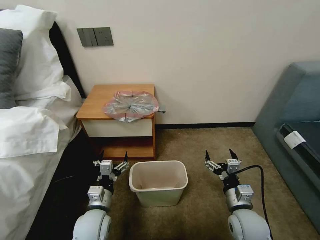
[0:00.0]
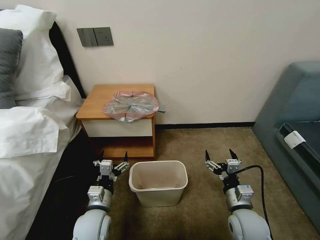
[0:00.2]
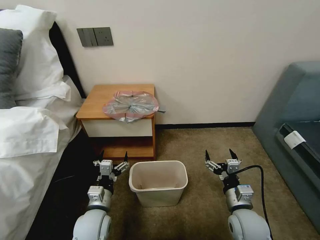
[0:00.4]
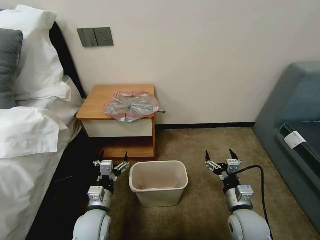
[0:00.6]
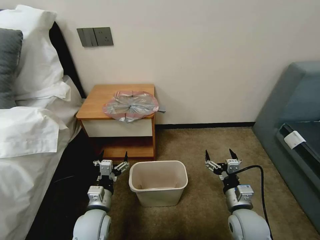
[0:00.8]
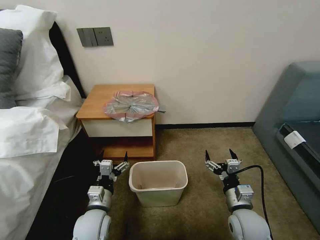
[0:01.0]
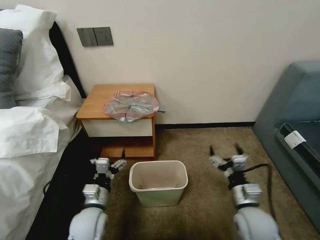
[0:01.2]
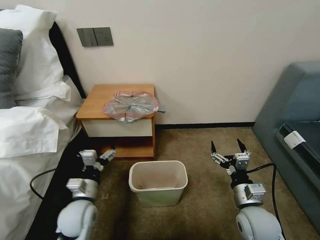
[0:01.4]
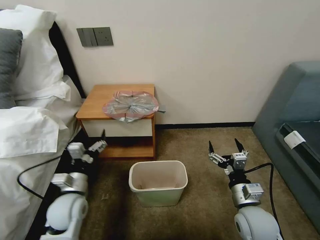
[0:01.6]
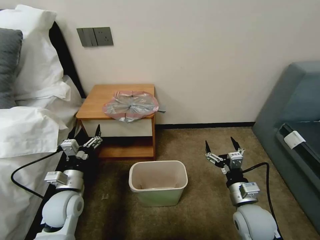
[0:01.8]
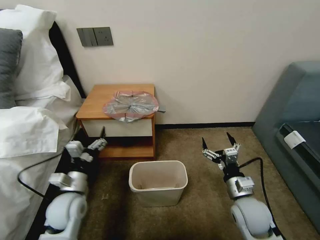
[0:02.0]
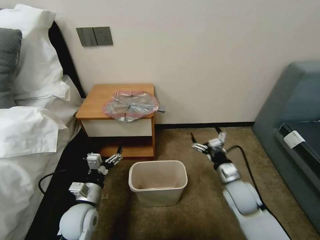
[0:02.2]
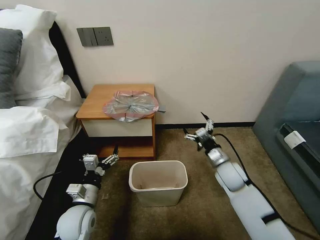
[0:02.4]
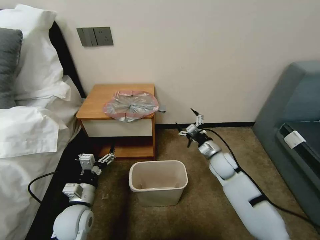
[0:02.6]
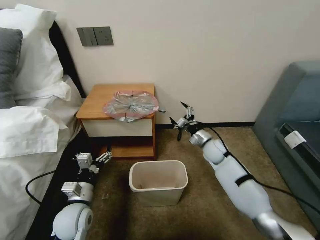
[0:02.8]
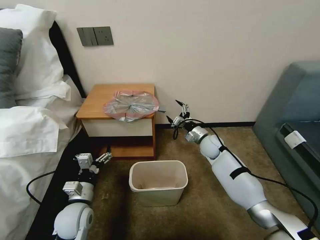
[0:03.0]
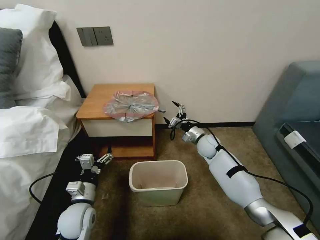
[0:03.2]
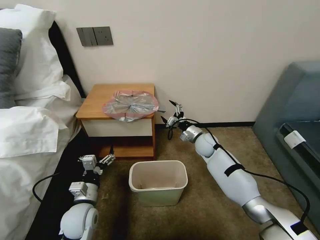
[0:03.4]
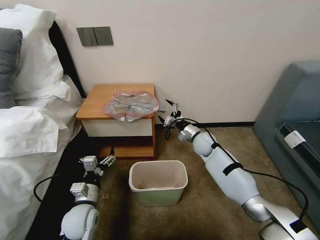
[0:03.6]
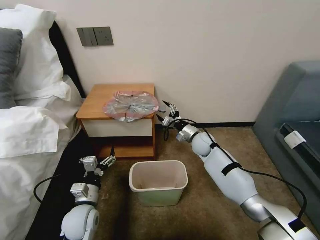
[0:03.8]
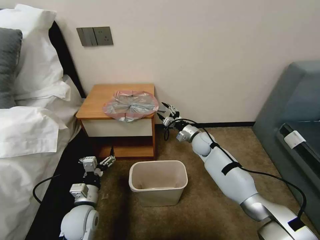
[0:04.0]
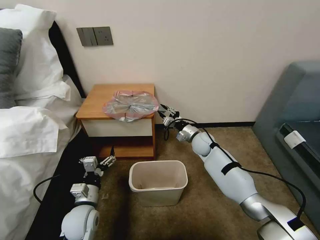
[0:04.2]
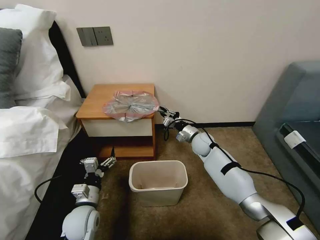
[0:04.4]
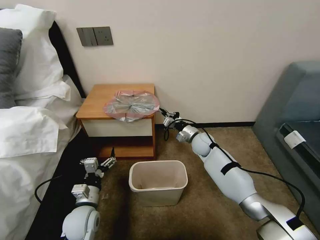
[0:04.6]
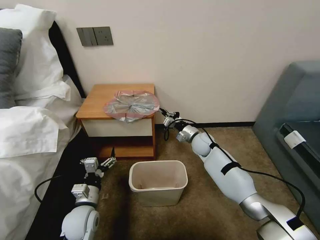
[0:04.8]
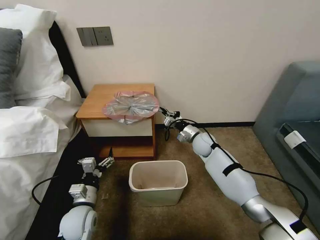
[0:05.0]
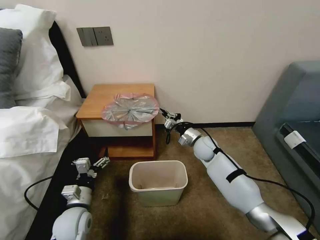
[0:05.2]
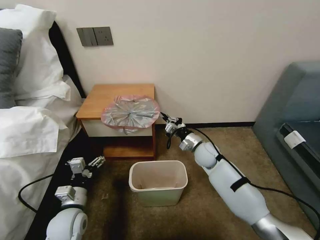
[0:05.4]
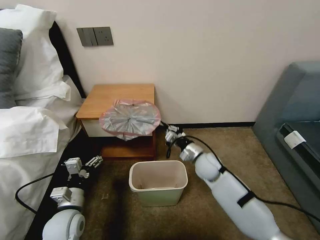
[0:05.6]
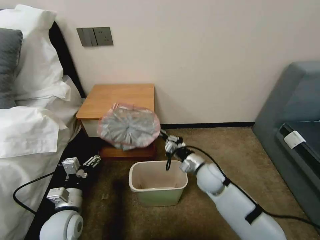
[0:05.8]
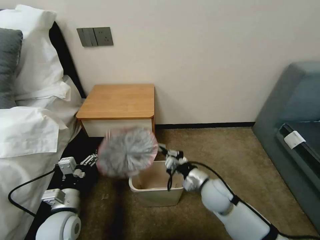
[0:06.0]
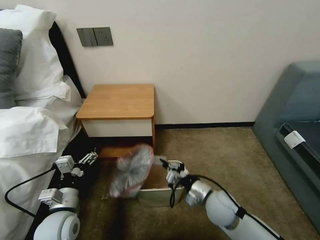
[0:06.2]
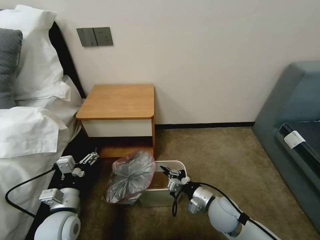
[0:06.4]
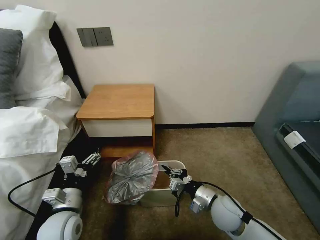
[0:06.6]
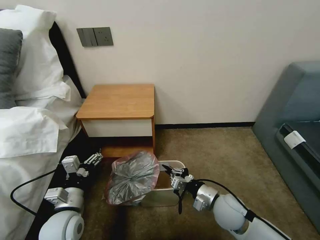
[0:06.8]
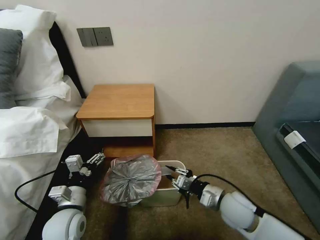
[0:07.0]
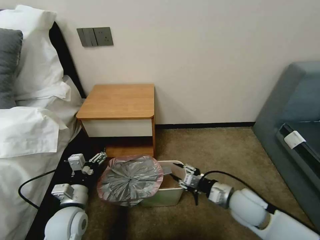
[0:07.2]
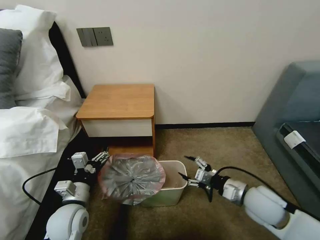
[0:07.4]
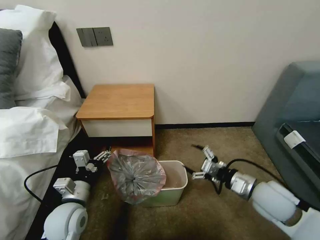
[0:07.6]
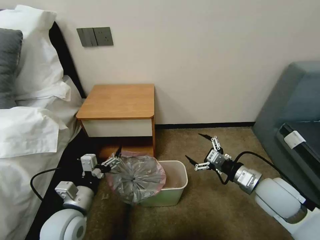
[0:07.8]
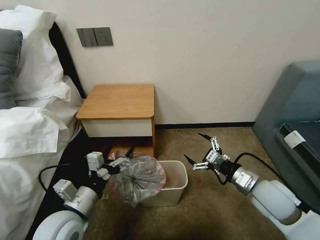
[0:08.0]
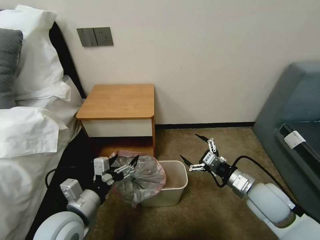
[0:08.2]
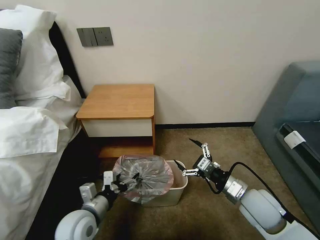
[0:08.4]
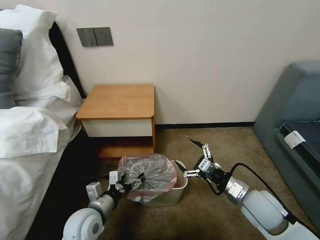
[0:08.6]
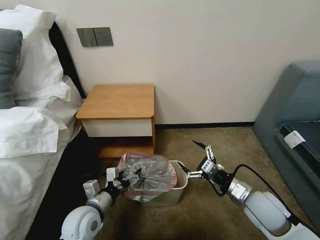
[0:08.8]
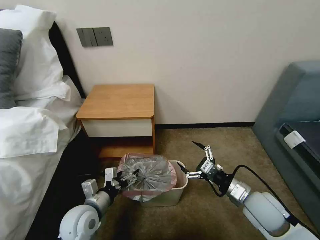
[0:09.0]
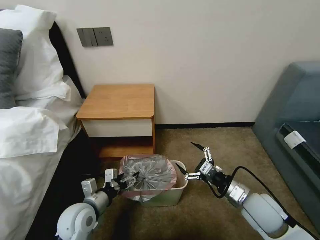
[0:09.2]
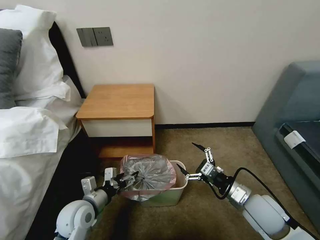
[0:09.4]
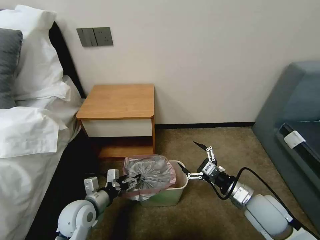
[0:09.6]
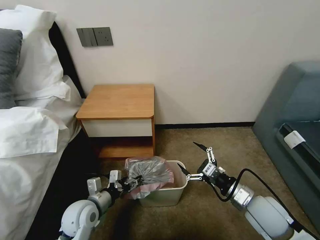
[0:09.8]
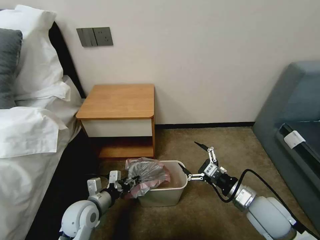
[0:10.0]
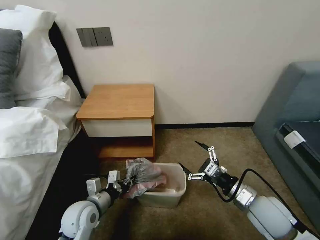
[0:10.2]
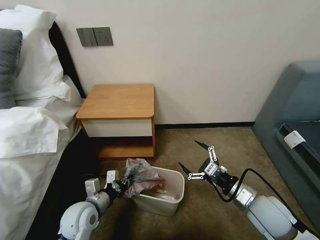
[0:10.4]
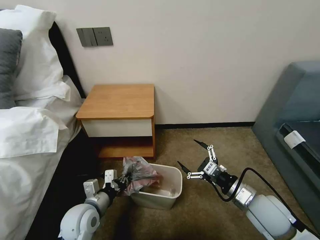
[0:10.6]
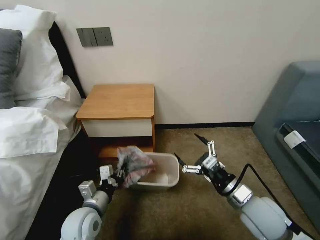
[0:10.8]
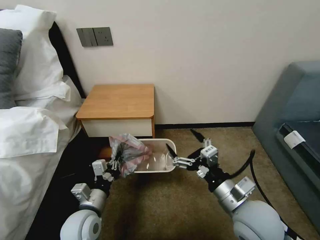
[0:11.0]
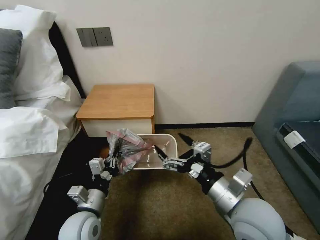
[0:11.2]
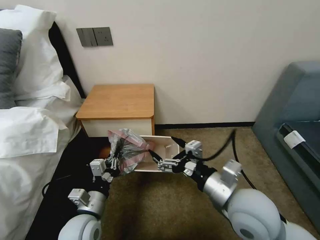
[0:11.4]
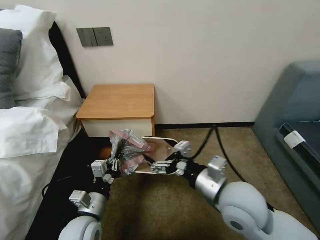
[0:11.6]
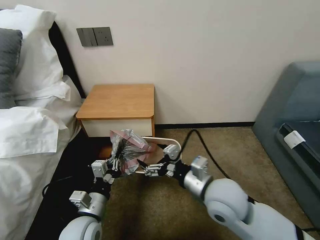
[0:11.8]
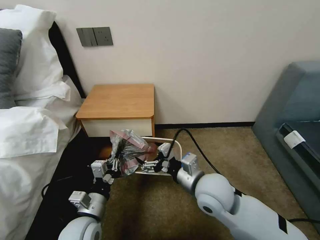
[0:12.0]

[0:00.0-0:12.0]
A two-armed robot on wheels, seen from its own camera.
Task of the whole recording: Pick up the garbage bag from the table and place it over the trash can.
0:01.6 to 0:03.0: The right gripper heads forward, covering about 30 cm.
0:03.0 to 0:04.4: The right gripper closes.
0:04.4 to 0:06.0: The left gripper moves approximately 5 cm. The right gripper shifts approximately 20 cm backward.
0:06.0 to 0:07.6: The right gripper shifts some 15 cm to the right and upward, and opens.
0:07.6 to 0:09.0: The left gripper travels upward and back again, some 5 cm each way.
0:09.0 to 0:10.4: The left gripper closes.
0:10.4 to 0:12.0: The left gripper changes place by approximately 5 cm. Meanwhile the right gripper shifts approximately 15 cm to the left.

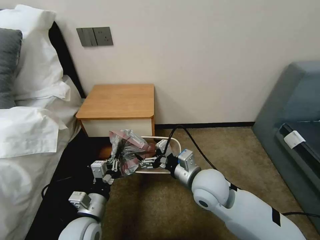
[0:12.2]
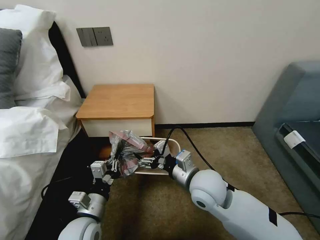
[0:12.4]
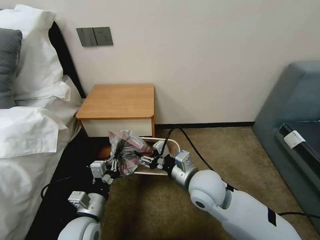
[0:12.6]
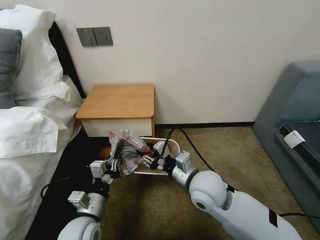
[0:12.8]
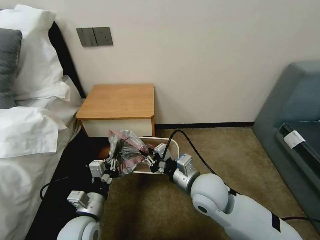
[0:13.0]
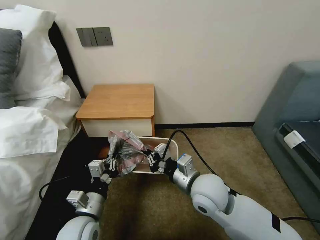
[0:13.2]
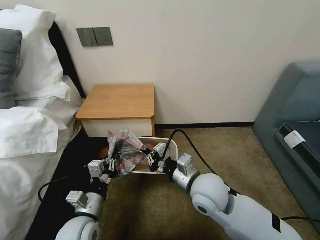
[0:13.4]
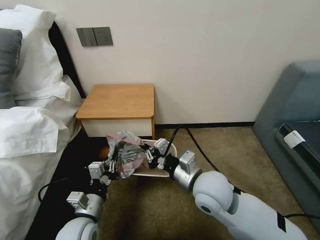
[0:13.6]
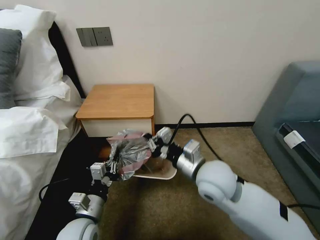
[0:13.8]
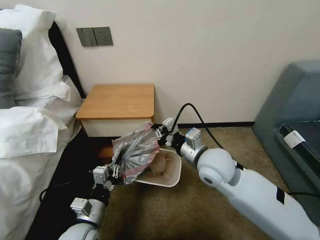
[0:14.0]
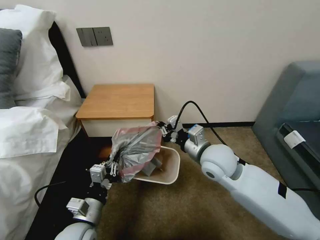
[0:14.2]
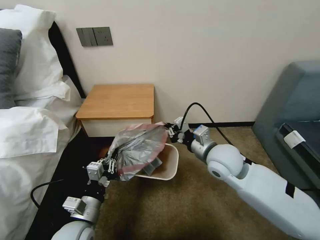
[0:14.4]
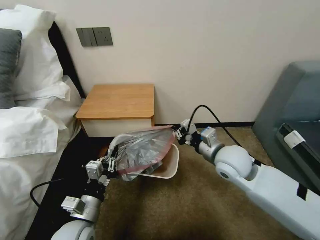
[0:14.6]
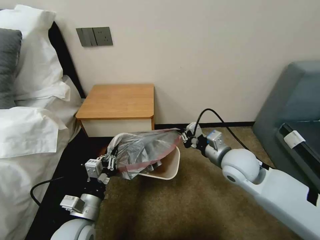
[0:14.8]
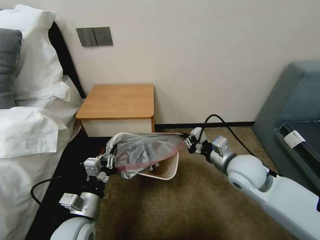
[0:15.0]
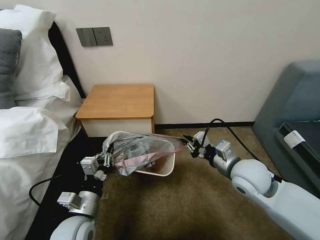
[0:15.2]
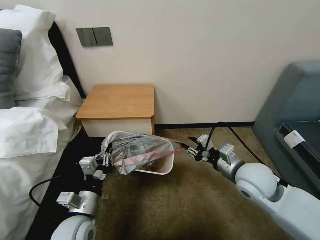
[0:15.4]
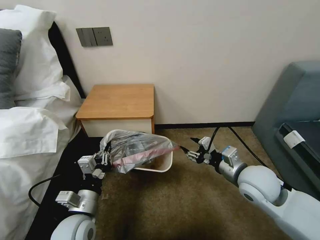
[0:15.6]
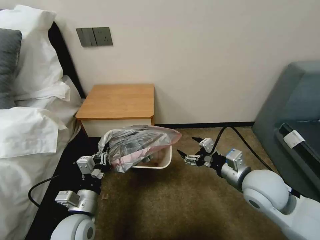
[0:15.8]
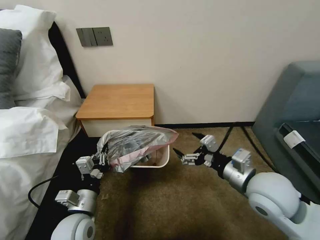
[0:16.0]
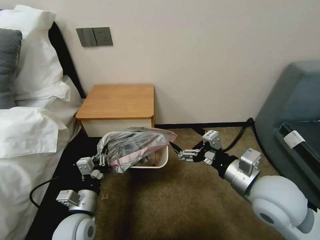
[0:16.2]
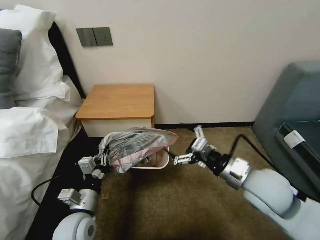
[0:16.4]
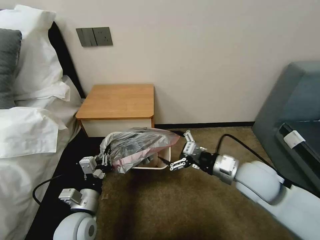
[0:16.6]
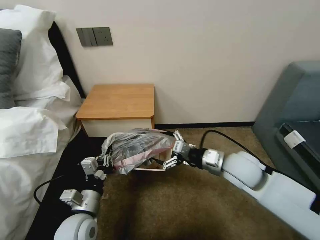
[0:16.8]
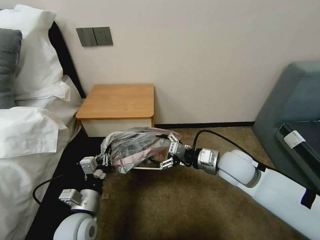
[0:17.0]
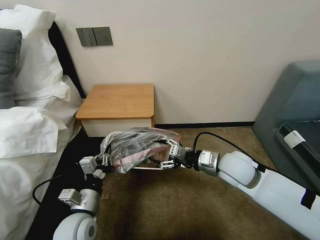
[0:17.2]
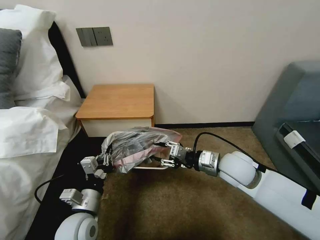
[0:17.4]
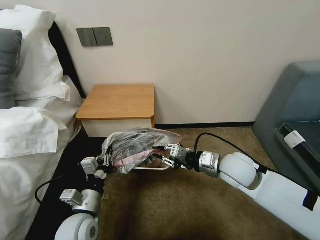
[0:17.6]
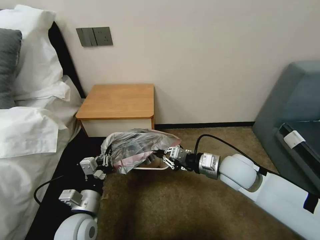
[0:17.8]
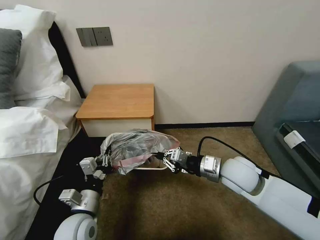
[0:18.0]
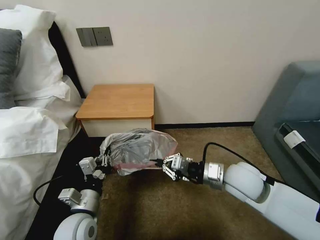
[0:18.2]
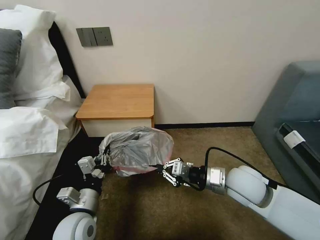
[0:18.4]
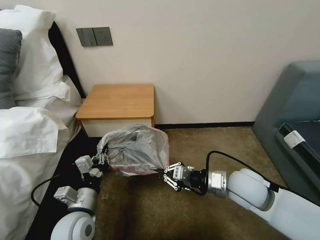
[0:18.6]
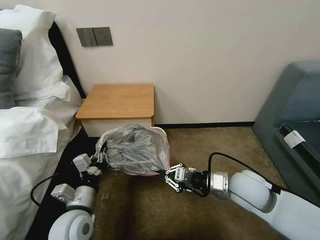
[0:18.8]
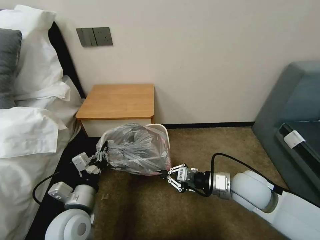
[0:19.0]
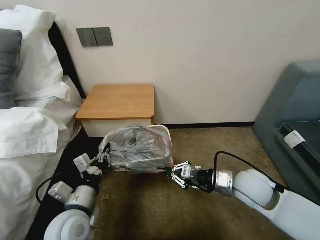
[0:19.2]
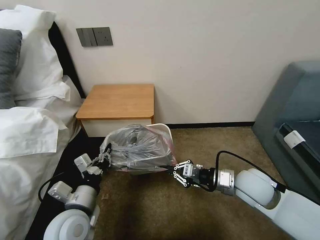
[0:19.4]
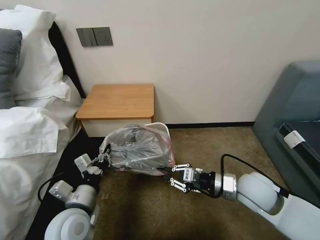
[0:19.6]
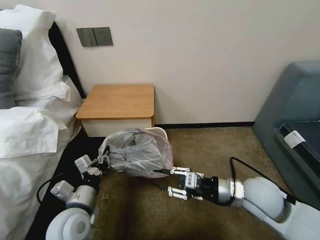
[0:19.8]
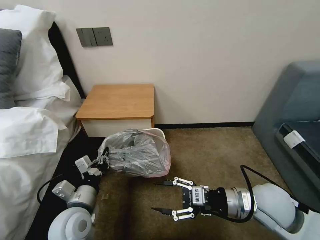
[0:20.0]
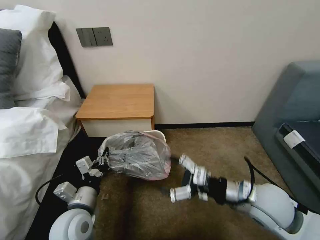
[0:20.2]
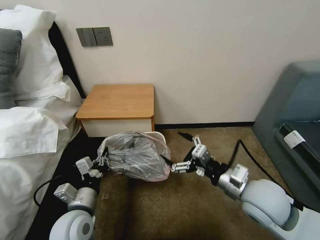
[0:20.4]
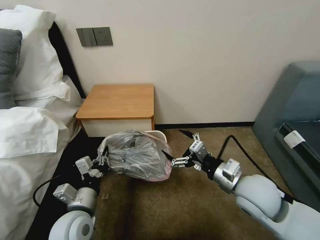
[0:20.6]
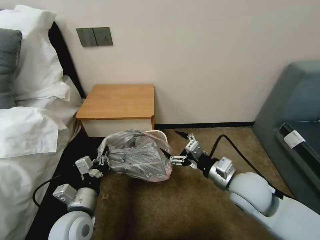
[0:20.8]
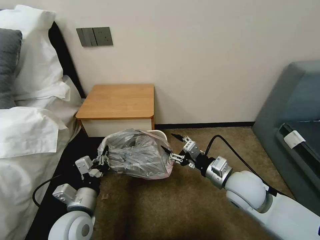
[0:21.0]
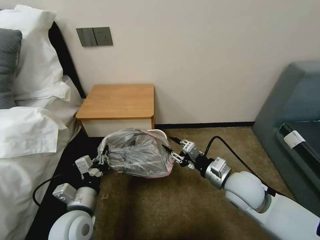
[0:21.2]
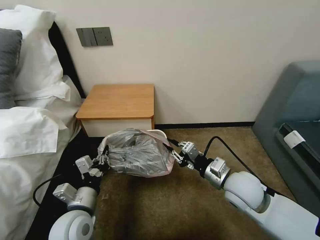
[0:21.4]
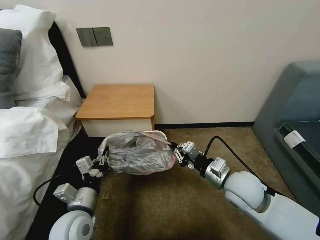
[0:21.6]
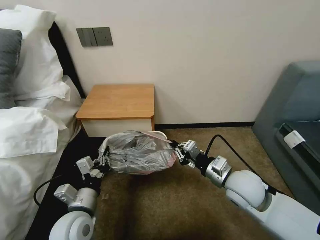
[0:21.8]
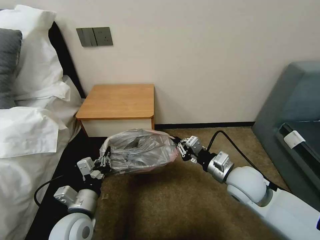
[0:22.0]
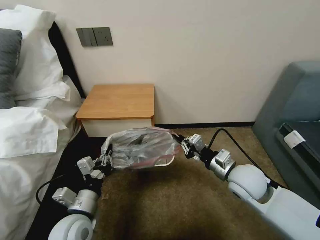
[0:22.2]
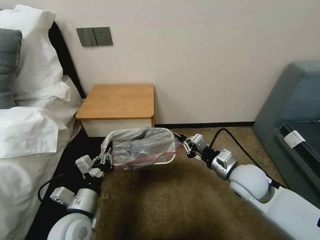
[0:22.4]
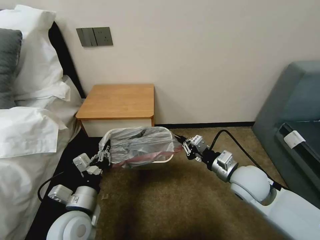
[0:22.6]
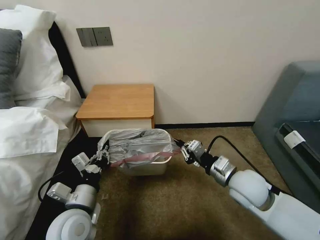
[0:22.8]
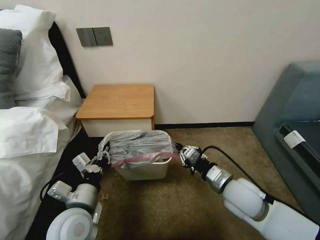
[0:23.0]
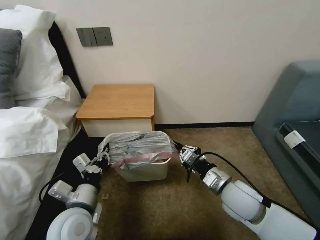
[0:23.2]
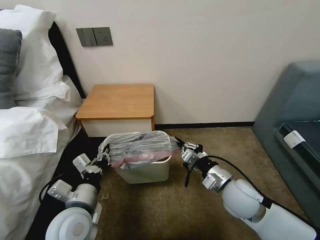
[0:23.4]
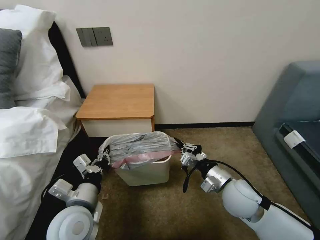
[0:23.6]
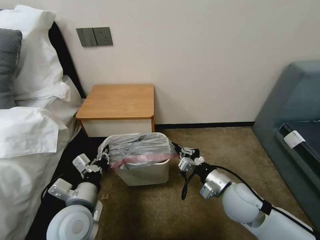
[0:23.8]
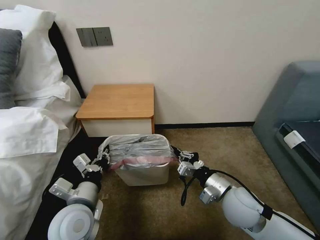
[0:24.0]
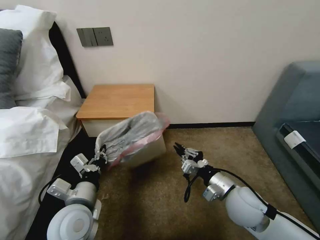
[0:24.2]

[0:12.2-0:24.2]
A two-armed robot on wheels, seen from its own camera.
Task of the whole recording: Pick up the garbage bag from the table and place it over the trash can.
0:12.2 to 0:13.8: The right gripper closes.
0:13.8 to 0:15.2: The right gripper goes some 10 cm to the right.
0:15.2 to 0:16.6: The right gripper goes backward and returns, about 10 cm each way, and opens up.
0:16.6 to 0:18.2: The right gripper closes.
0:18.2 to 0:19.8: The right gripper ends up approximately 5 cm from where it was.
0:19.8 to 0:21.2: The right gripper opens and closes again.
0:21.2 to 0:22.6: The right gripper closes.
0:22.6 to 0:24.2: The right gripper shifts by roughly 5 cm.
